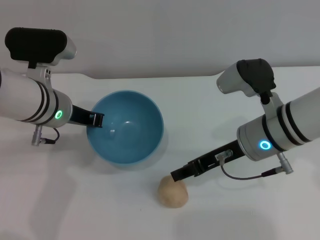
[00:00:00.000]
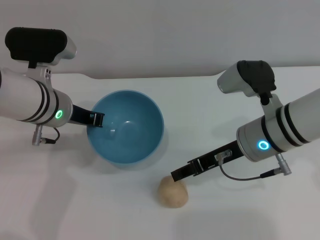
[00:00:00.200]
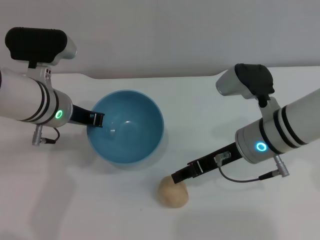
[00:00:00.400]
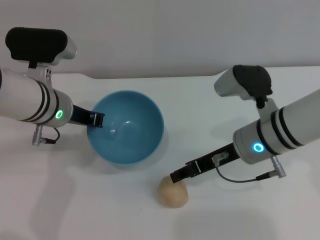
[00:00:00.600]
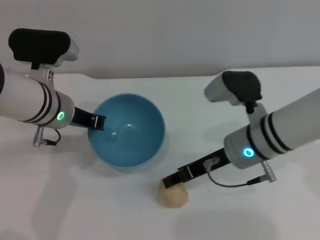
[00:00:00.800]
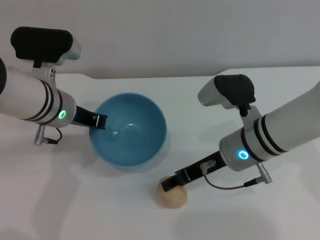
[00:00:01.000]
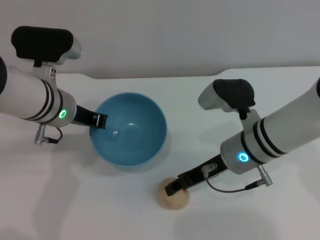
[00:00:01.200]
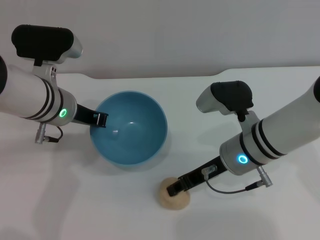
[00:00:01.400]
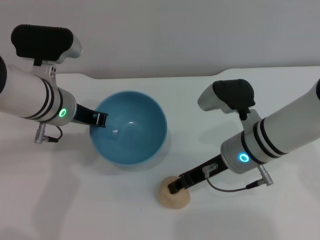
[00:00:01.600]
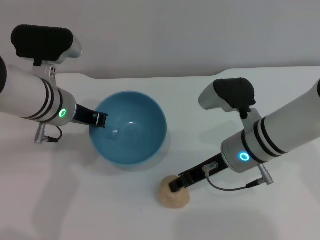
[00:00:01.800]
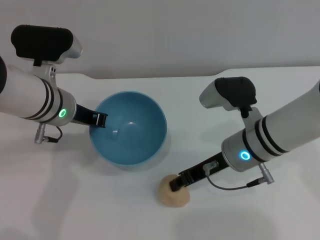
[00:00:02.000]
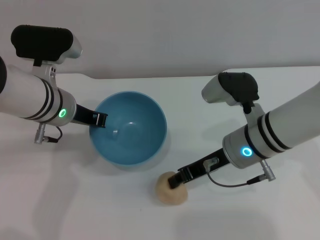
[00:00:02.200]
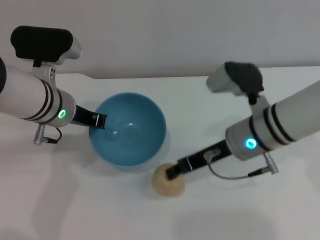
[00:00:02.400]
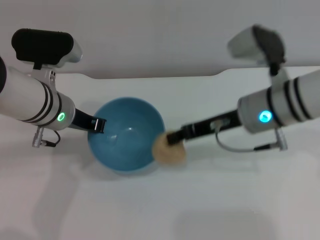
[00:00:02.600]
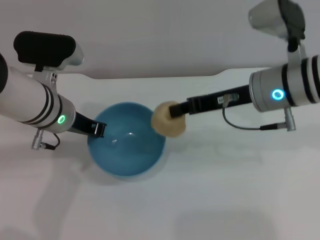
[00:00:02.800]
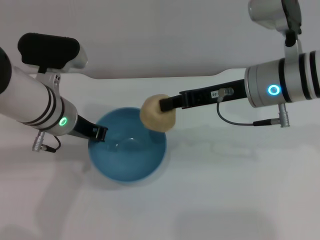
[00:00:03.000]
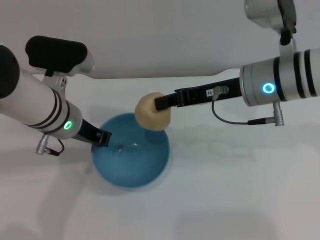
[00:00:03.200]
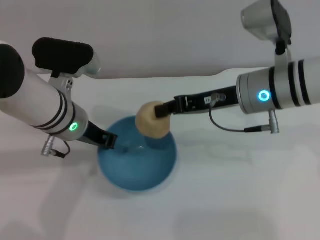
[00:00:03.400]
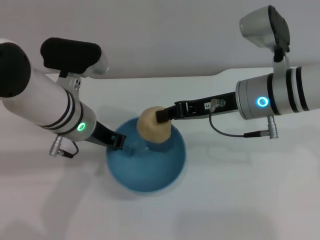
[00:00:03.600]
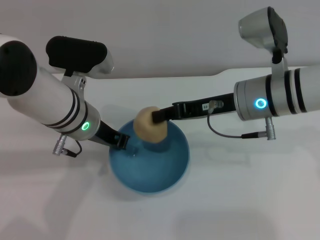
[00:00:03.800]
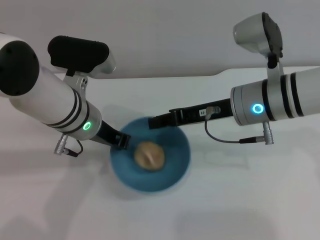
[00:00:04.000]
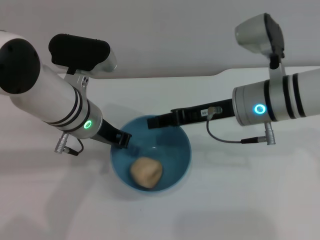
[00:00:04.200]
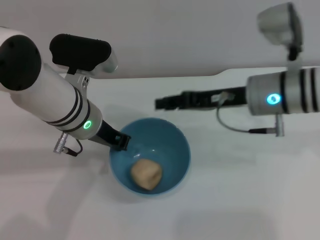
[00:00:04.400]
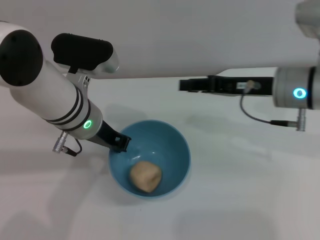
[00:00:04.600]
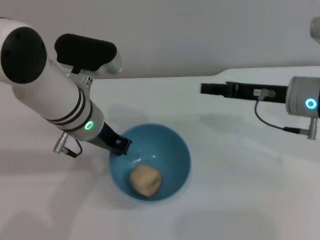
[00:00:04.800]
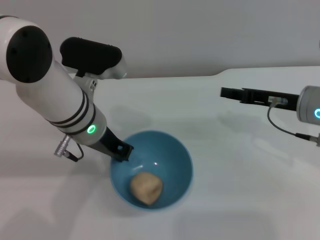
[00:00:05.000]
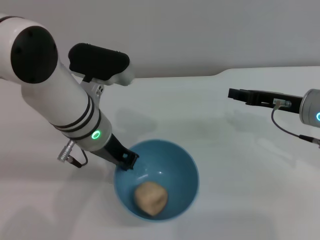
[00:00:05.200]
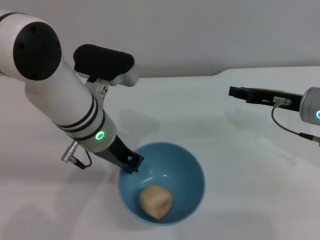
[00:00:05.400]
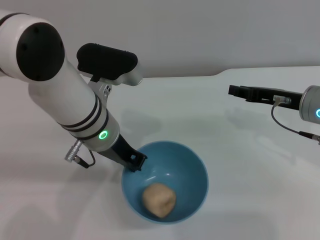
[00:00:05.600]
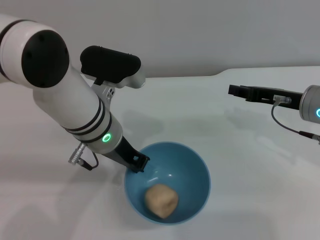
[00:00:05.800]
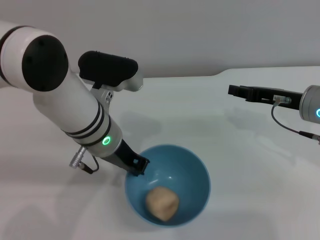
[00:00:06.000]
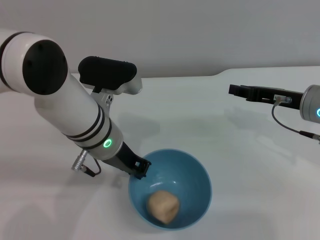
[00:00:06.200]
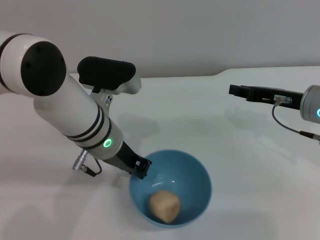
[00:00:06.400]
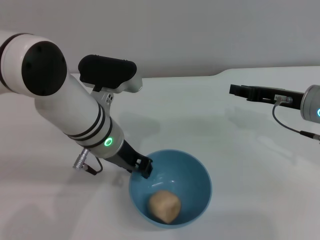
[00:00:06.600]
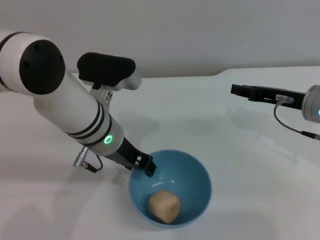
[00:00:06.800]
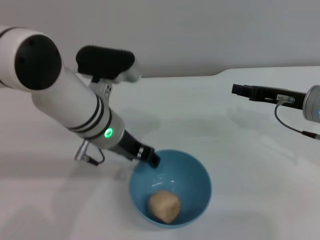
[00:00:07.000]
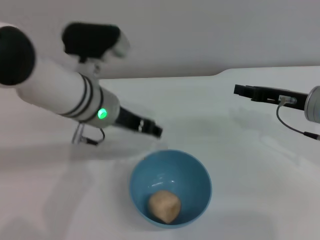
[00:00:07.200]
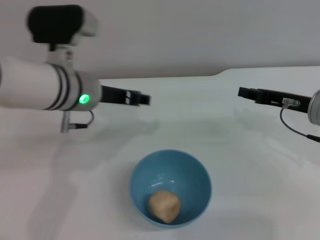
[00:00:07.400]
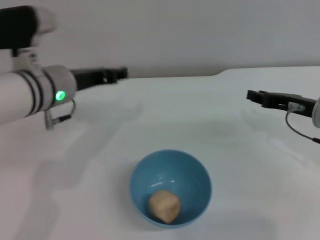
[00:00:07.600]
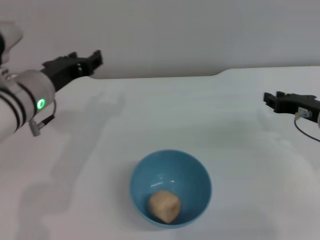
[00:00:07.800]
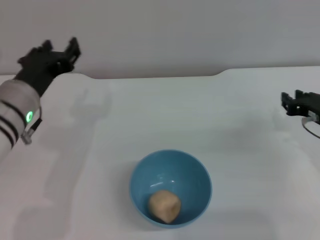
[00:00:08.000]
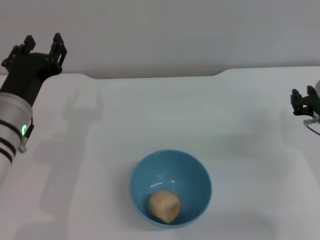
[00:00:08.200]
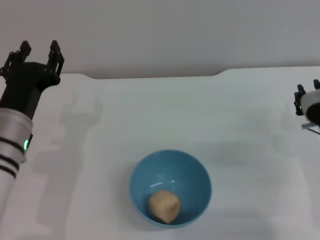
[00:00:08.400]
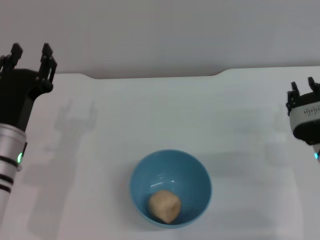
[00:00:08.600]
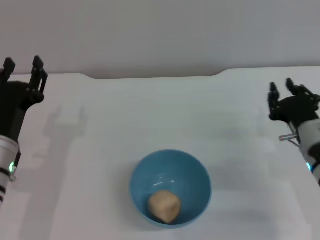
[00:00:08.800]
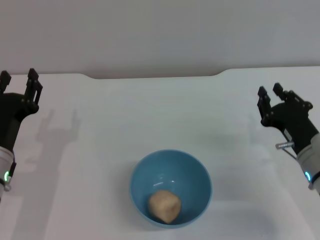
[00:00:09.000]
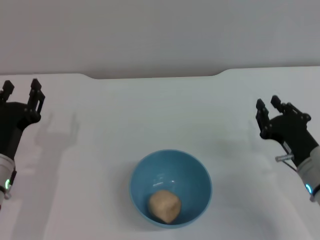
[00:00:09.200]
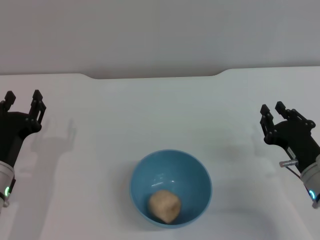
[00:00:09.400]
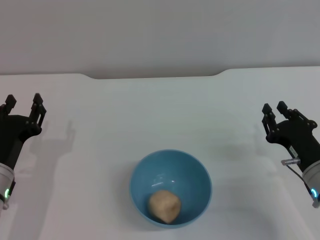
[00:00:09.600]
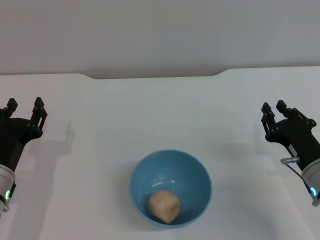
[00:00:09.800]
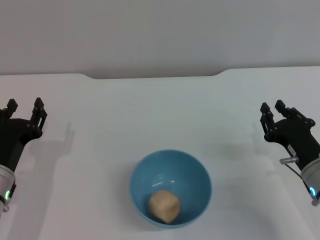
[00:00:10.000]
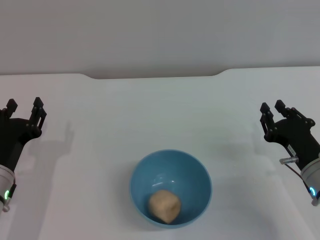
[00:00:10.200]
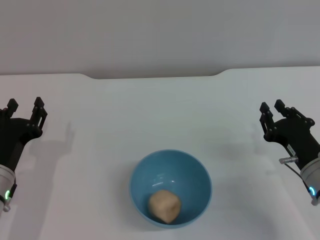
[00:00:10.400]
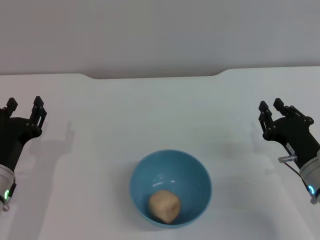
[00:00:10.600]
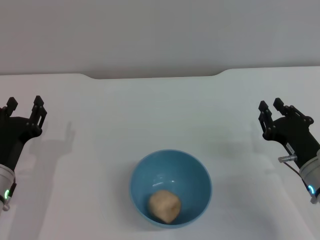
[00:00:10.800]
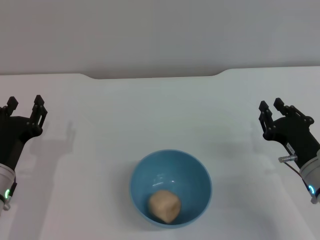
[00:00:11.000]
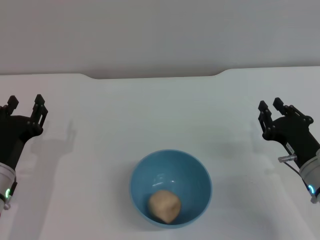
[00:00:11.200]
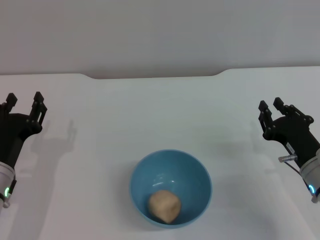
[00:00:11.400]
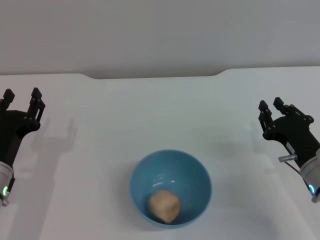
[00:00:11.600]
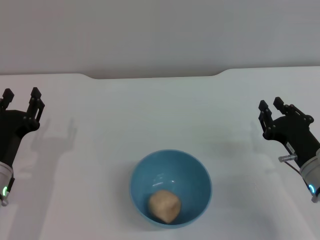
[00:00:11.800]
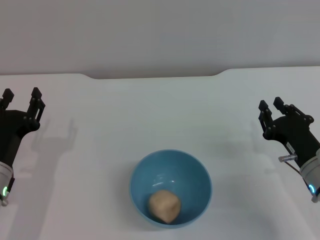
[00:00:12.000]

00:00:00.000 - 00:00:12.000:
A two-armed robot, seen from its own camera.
Task of the whole recording: put the egg yolk pastry into the blue bowl and pour it out repeatedly.
Step, 00:00:00.000 - 00:00:02.800: Pick up the egg yolk pastry with the right gripper.
Step, 00:00:03.000 - 00:00:04.600: Place the egg yolk pastry into the bowl.
Step, 00:00:04.800 - 00:00:07.800: Place the bowl on the table.
00:00:00.000 - 00:00:01.600: The grippers stay close to where they were, moving slightly.
00:00:01.600 - 00:00:03.000: The right gripper moves upward, about 10 cm, and closes its fingers.
00:00:04.400 - 00:00:06.000: The right gripper moves to the right, approximately 10 cm.
00:00:06.000 - 00:00:07.600: The left gripper moves to the left, roughly 5 cm, and opens its fingers.
00:00:07.600 - 00:00:09.000: The left gripper goes about 15 cm downward, backward and to the left; the right gripper moves backward and downward, roughly 10 cm.
00:00:09.000 - 00:00:10.400: There are only small adjustments of the grippers.
00:00:10.400 - 00:00:12.000: Neither gripper changes place.

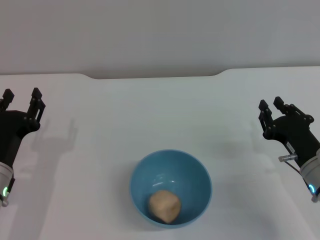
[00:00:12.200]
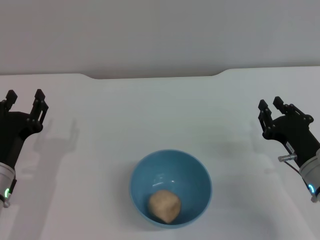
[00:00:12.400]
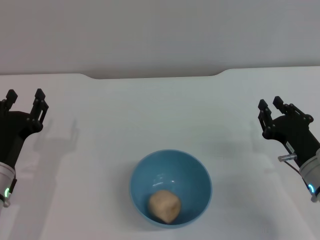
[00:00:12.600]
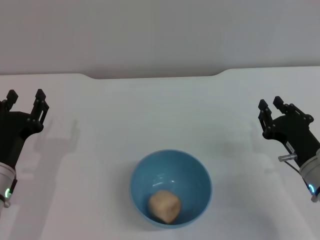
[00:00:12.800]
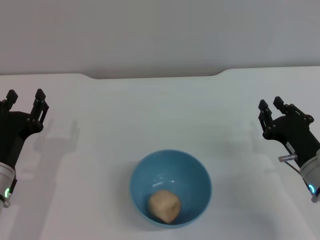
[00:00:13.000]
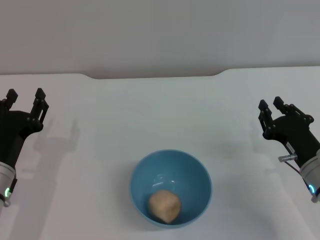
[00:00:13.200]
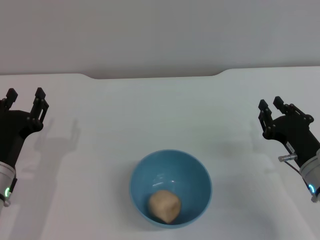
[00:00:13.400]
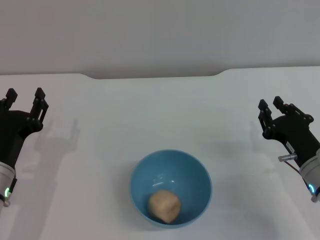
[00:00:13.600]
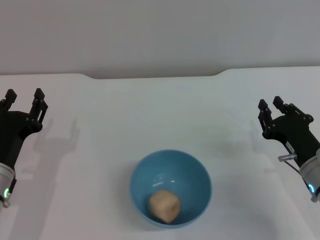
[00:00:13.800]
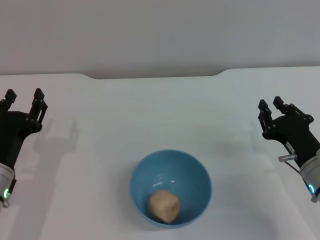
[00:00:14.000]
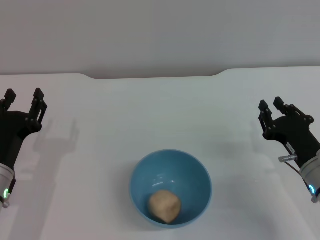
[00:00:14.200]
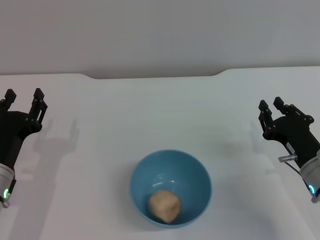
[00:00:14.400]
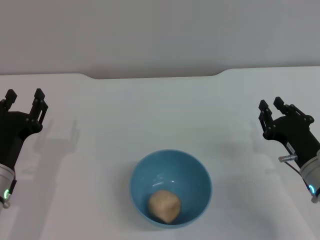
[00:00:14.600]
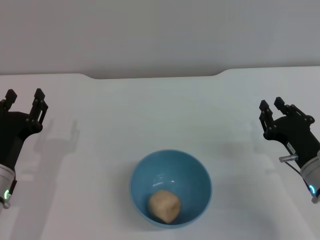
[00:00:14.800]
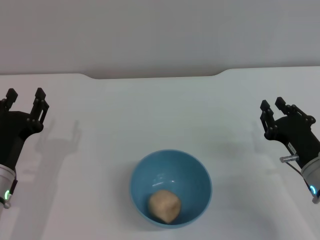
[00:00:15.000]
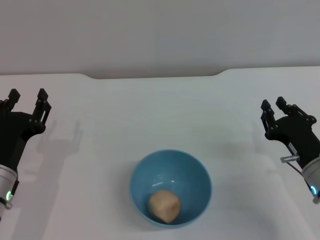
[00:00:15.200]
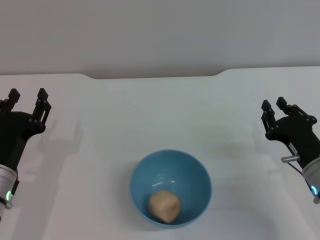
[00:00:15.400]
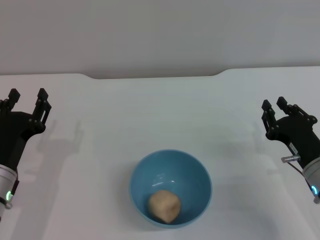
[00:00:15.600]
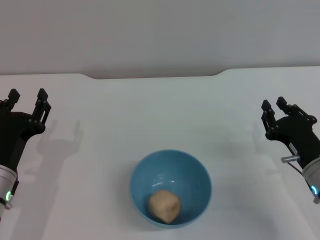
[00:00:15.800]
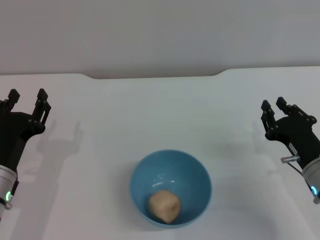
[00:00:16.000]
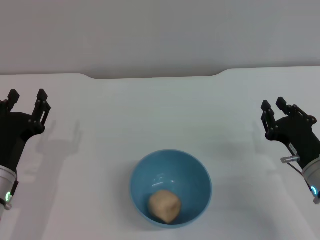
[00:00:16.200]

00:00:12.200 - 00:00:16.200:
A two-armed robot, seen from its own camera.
Task of the whole recording: put the egg yolk pastry into the blue bowl and pour it out repeatedly.
00:00:12.200 - 00:00:16.200: Neither gripper changes place.
